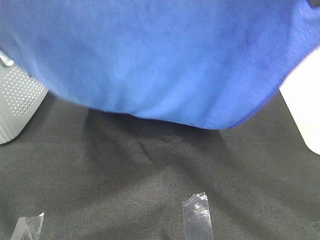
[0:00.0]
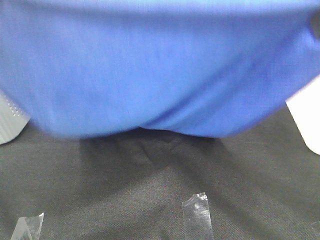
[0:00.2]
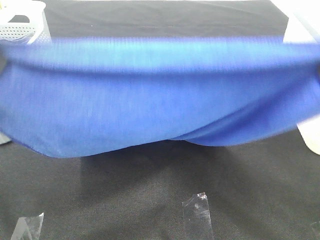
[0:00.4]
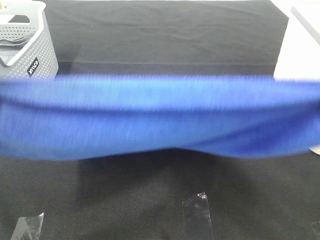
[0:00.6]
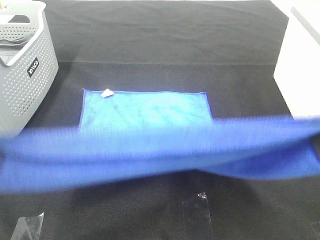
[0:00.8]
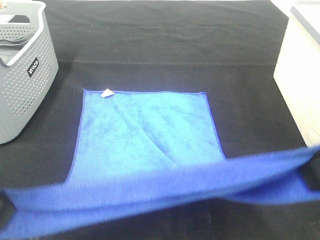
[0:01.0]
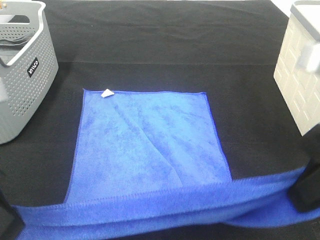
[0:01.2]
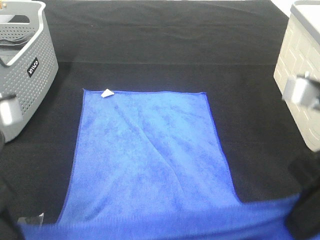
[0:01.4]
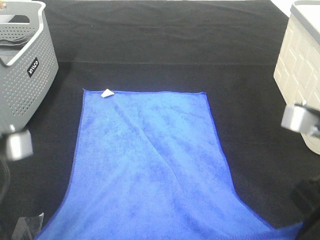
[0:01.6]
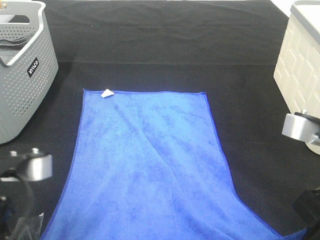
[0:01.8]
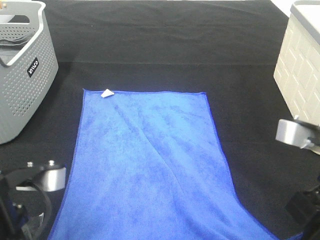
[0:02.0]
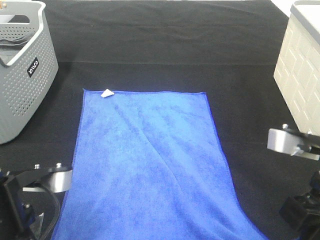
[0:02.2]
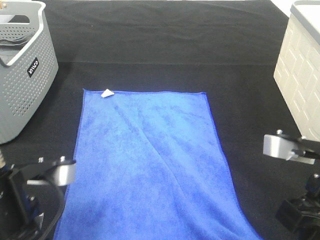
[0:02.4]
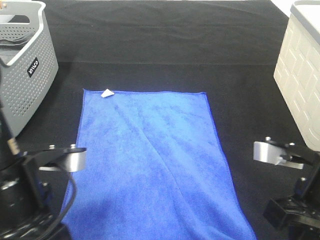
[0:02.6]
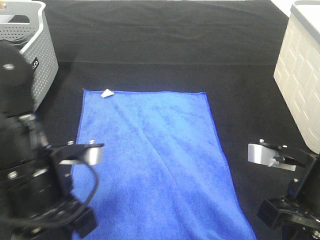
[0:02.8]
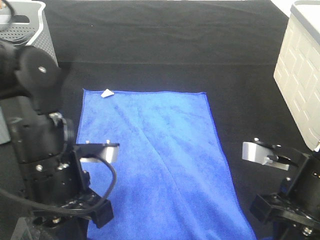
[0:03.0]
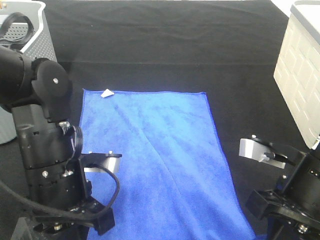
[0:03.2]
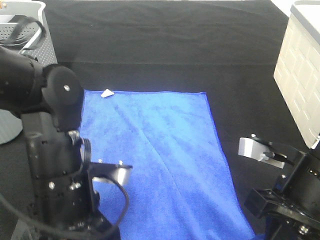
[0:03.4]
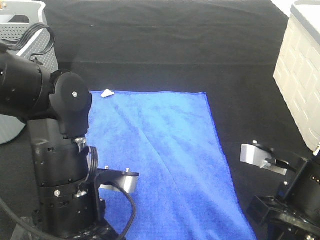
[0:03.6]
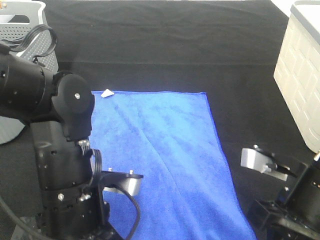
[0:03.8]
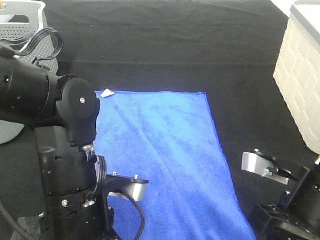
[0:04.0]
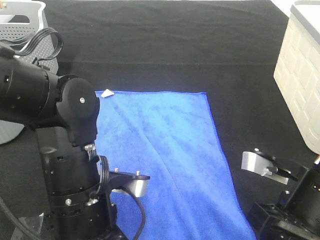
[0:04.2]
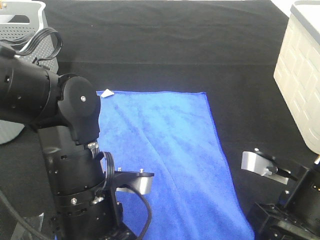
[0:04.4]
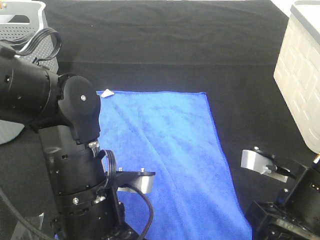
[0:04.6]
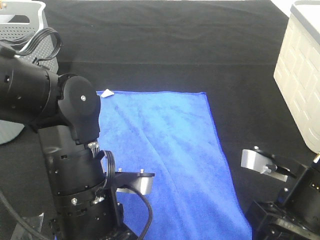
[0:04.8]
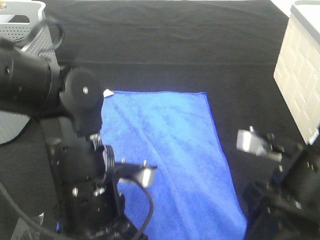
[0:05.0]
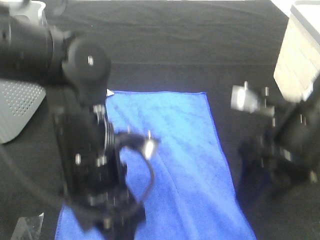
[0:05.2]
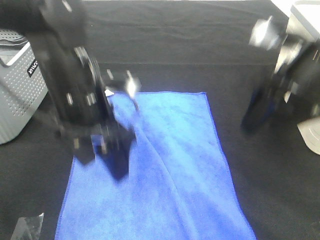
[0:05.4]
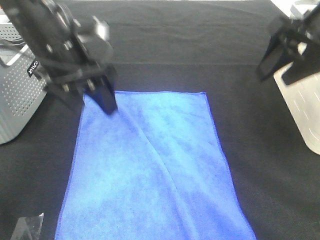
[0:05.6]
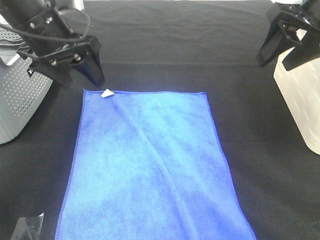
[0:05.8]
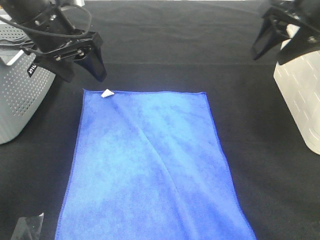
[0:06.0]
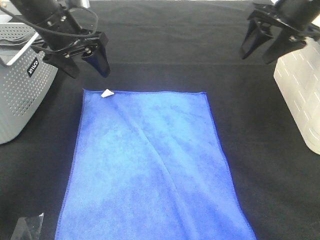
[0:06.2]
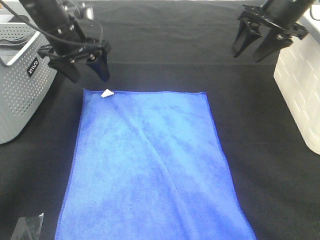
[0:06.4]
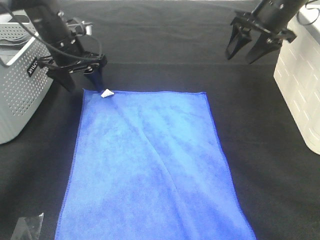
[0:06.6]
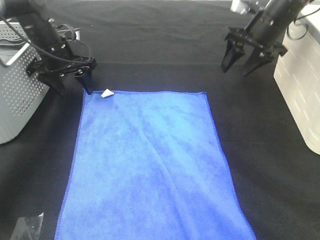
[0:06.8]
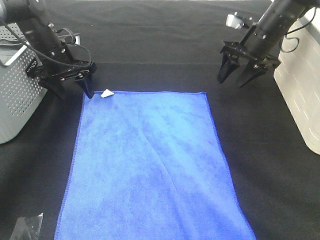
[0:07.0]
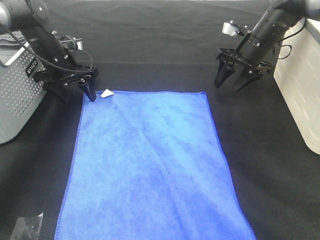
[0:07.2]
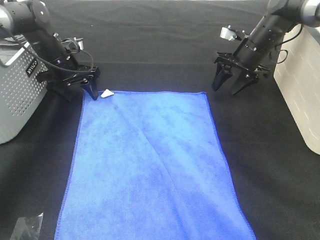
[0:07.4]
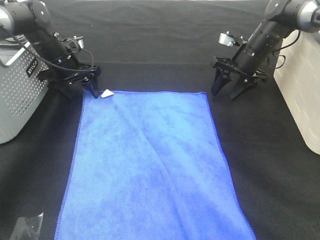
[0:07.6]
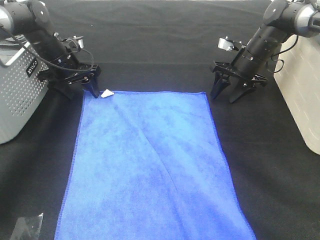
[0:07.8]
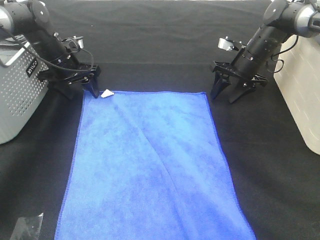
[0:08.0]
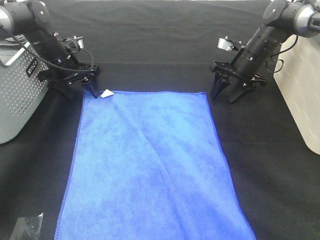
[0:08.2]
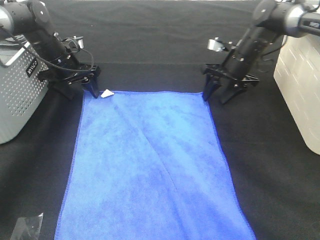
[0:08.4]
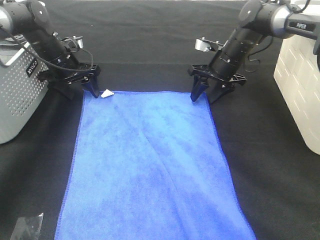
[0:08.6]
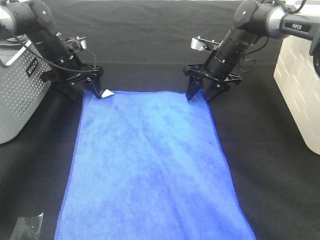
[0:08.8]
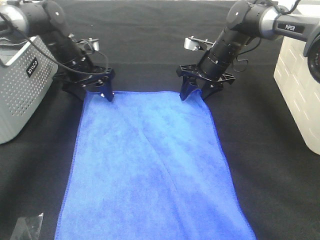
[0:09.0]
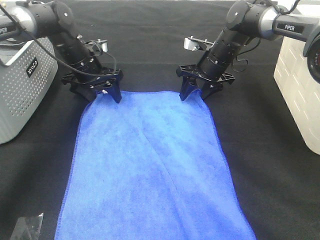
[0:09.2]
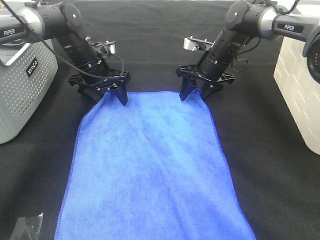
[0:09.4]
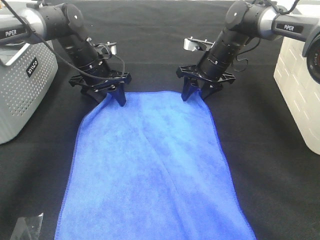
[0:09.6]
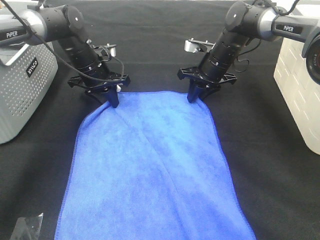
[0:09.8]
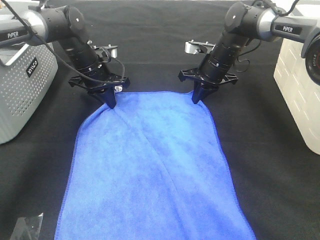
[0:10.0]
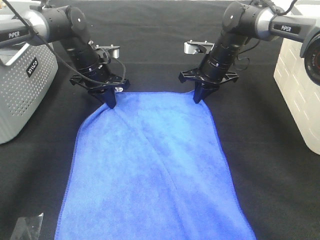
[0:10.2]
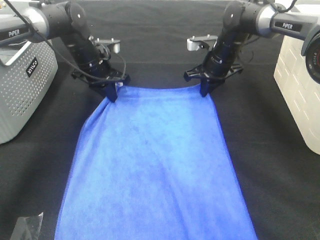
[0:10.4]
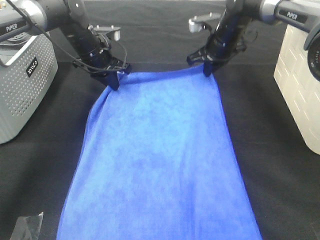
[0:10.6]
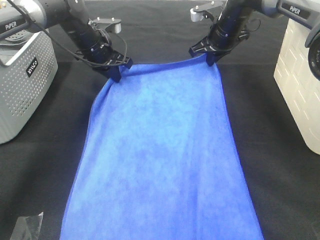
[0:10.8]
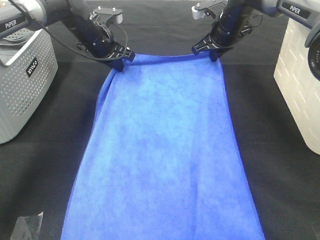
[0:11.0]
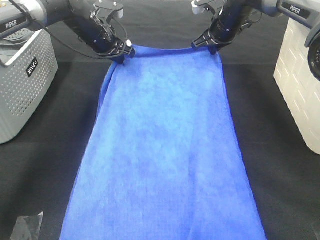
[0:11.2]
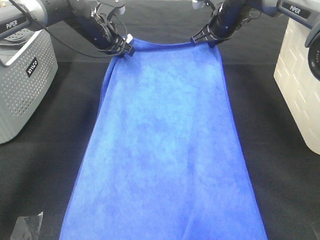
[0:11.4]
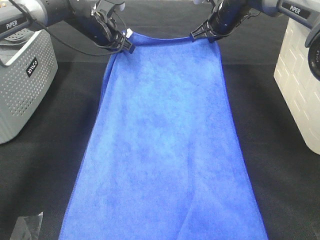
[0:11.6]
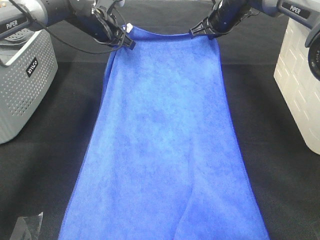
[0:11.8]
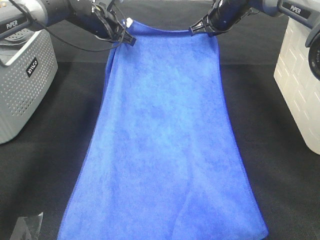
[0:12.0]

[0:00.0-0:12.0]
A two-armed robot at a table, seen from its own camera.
Task of the whole recording: Remove the towel and place it.
Step, 0:00.0 to 0:07.4: Right hand:adjust the blue towel.
Step, 0:00.0 to 0:10.6: Left hand:adjust the blue towel.
0:00.0 to 0:01.6: Both grippers travel together downward, approximately 20 cm.
0:01.6 to 0:03.0: The right gripper heads downward, covering approximately 5 cm. Meanwhile the left gripper is displaced downward, forward and to the right by roughly 15 cm.
0:03.0 to 0:04.4: The left gripper ends up roughly 5 cm from where it was. The right gripper opens.
0:04.4 to 0:06.0: The right gripper is displaced forward and upward by some 25 cm; the left gripper is displaced forward, upward and to the left by some 25 cm, and opens.
0:06.0 to 0:07.6: Both grippers move downward and forward, about 20 cm.
0:07.6 to 0:09.0: The right gripper moves to the left, roughly 10 cm.
0:09.0 to 0:10.4: The left gripper closes. Meanwhile the right gripper closes its fingers.
0:10.4 to 0:12.0: The left gripper heads upward and forward, covering approximately 10 cm, while the right gripper heads upward, covering some 5 cm.

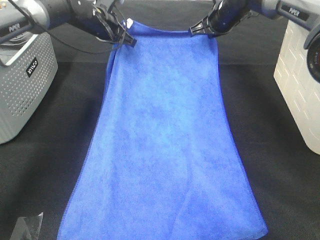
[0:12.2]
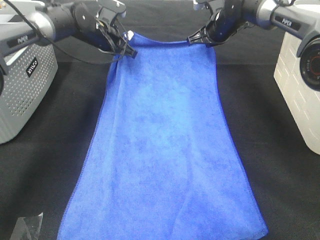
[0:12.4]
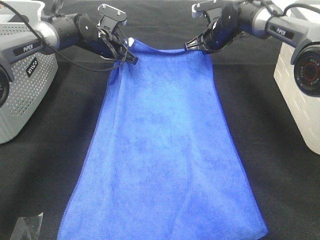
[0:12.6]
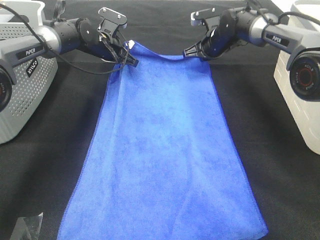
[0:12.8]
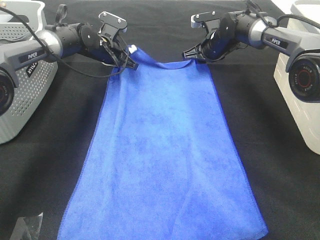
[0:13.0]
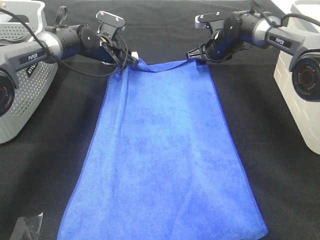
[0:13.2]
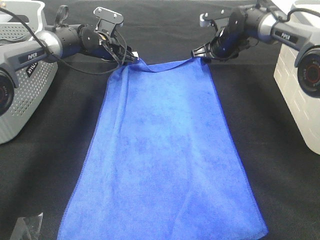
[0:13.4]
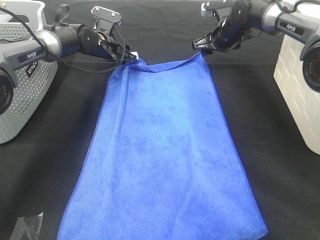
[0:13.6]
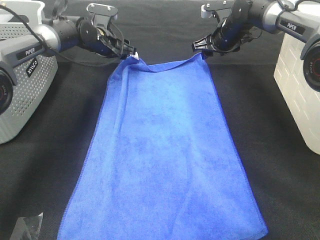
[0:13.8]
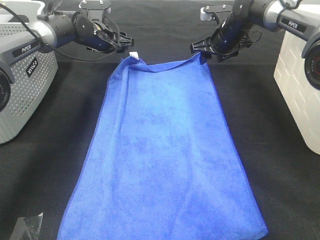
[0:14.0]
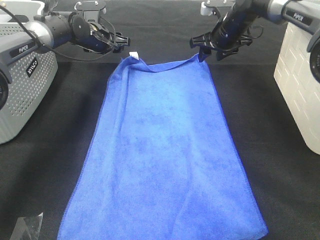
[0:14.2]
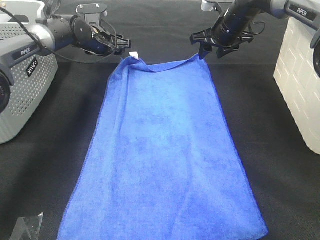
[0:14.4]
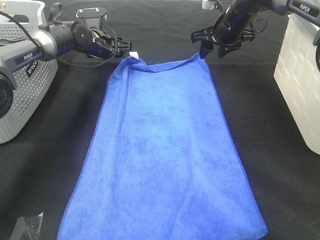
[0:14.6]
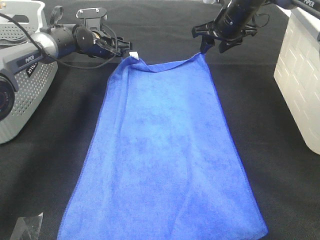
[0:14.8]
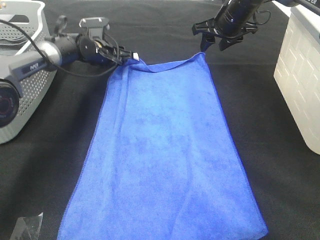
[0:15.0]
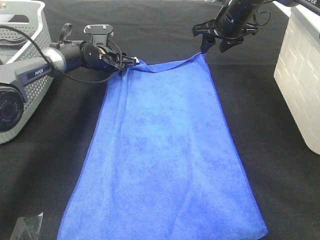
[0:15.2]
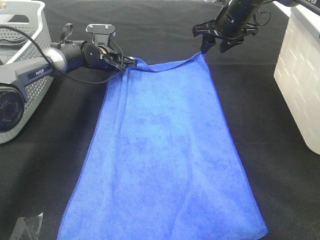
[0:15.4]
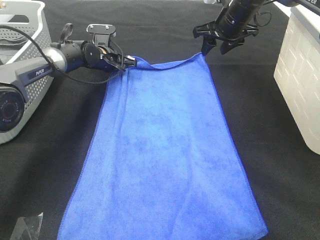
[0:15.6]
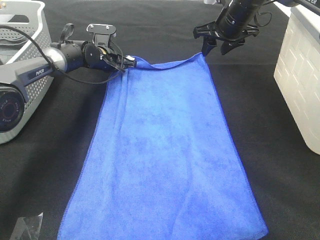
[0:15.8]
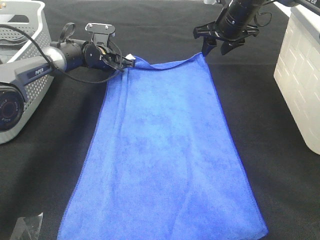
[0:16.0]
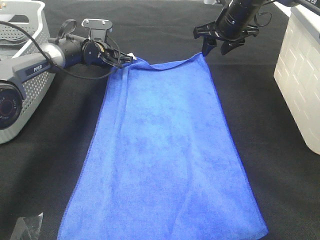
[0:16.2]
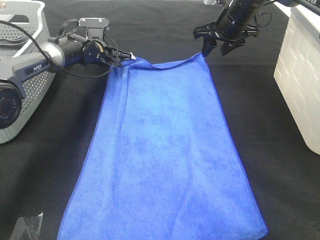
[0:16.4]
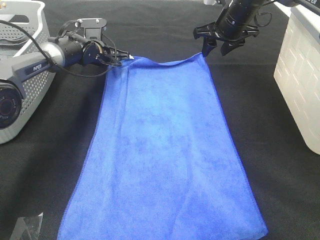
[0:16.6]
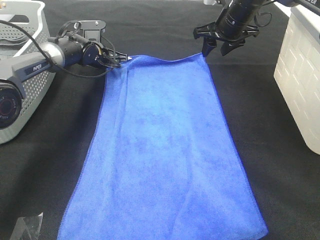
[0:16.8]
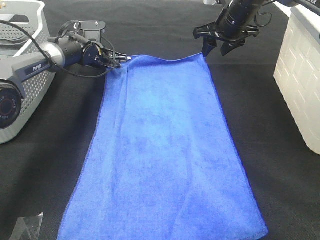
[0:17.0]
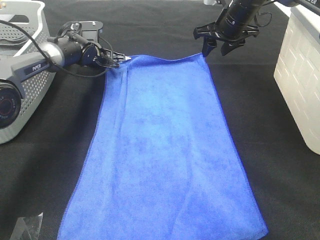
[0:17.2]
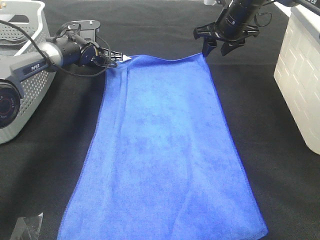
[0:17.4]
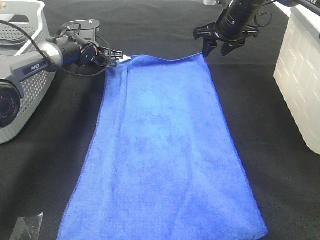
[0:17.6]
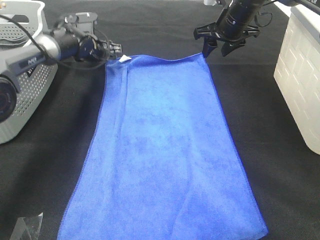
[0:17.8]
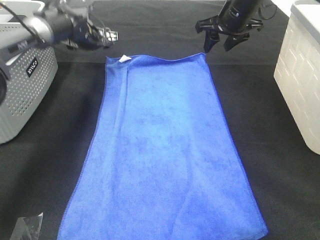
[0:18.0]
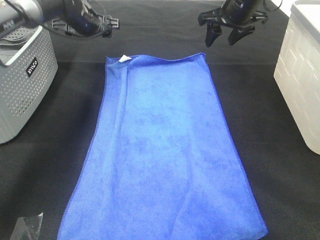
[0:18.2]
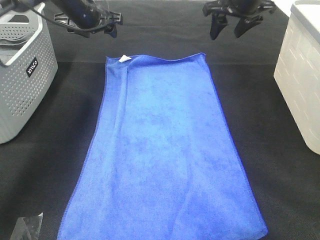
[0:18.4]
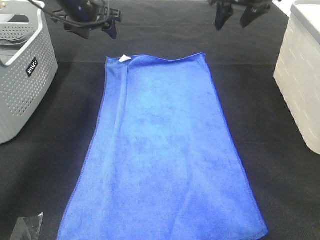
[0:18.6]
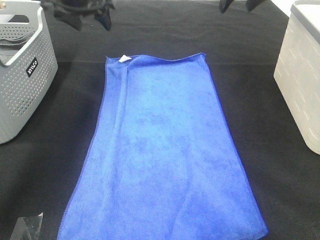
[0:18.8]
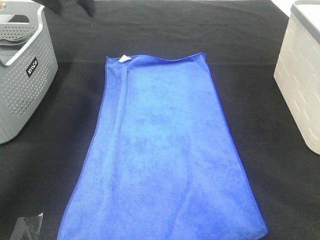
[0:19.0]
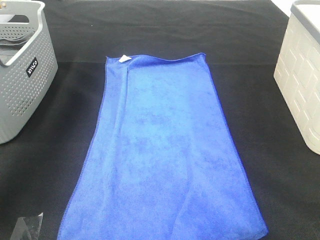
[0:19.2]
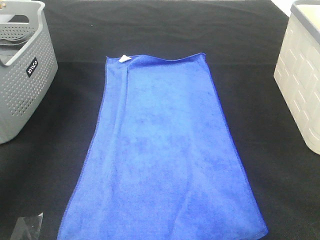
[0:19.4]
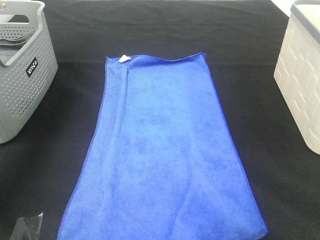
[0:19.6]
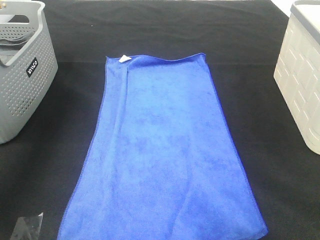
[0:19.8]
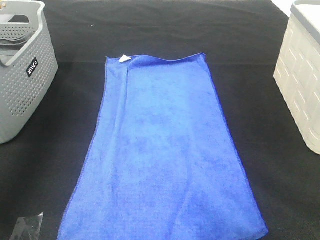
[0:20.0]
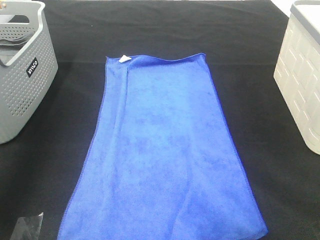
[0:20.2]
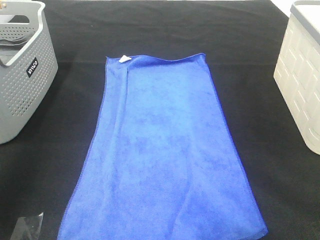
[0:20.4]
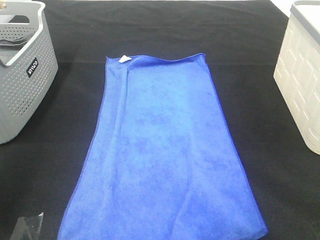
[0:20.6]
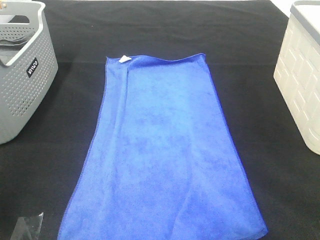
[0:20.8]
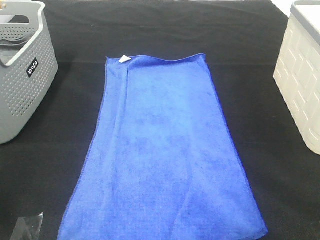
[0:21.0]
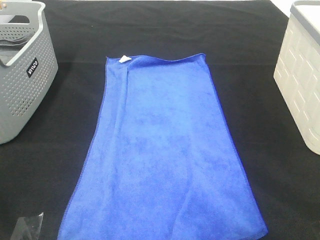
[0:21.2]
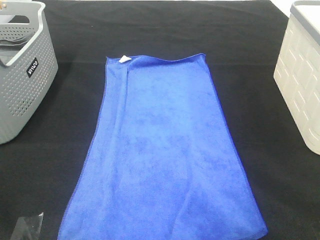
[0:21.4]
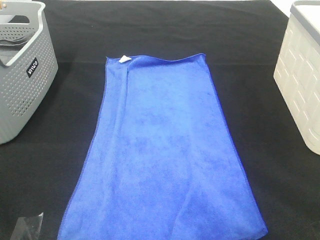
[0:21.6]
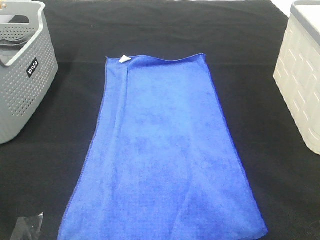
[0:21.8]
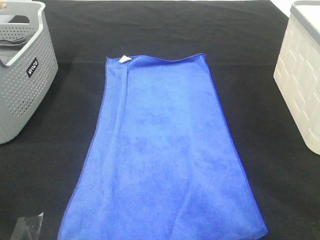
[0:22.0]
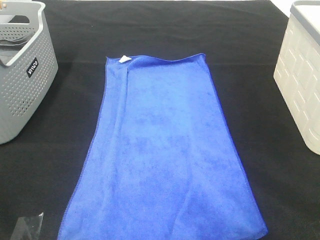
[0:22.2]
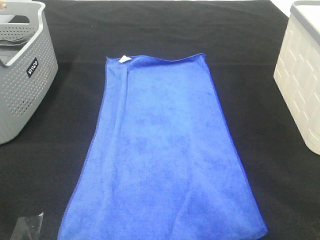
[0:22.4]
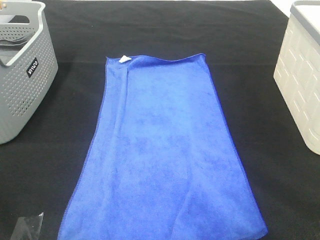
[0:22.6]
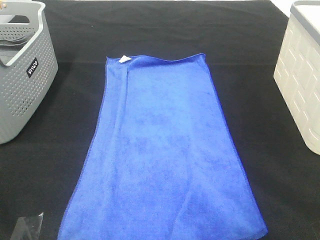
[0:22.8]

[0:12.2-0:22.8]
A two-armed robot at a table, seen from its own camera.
Task of the whole recording: Remove the towel and place it.
0:12.2 to 0:13.8: The right gripper opens its fingers; the left gripper opens its fingers.
0:13.8 to 0:15.2: The right gripper travels upward by about 5 cm, while the left gripper moves downward, roughly 5 cm.
0:15.2 to 0:16.8: The left gripper closes.
0:16.8 to 0:18.2: The left gripper goes roughly 10 cm upward, and opens up.
0:18.2 to 0:19.8: The right gripper heads backward, upward and to the right, covering some 30 cm. The left gripper travels upward, backward and to the left by about 30 cm.
0:19.8 to 0:21.2: The left gripper goes roughly 40 cm backward.
